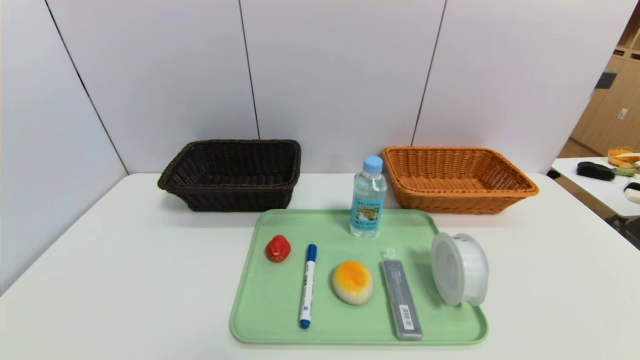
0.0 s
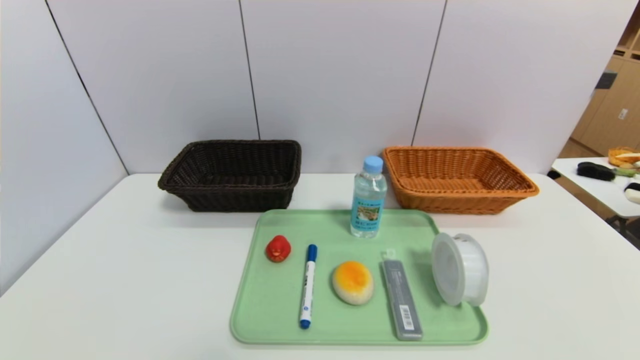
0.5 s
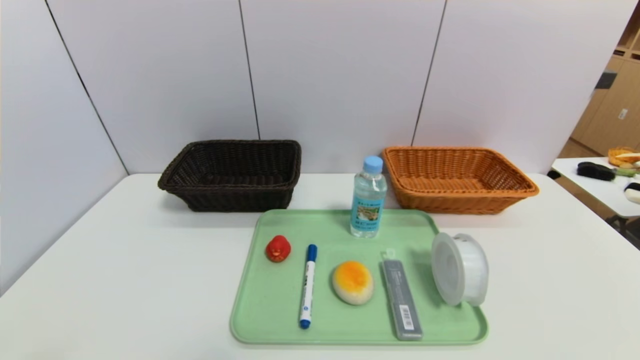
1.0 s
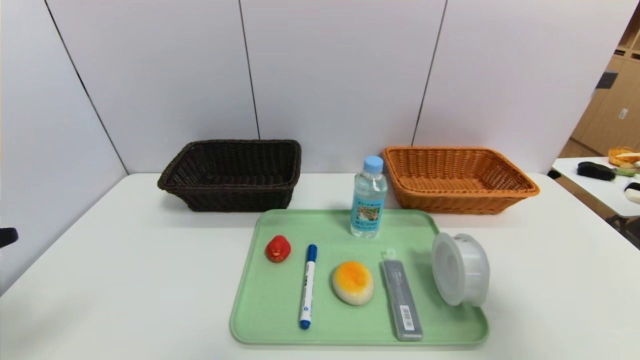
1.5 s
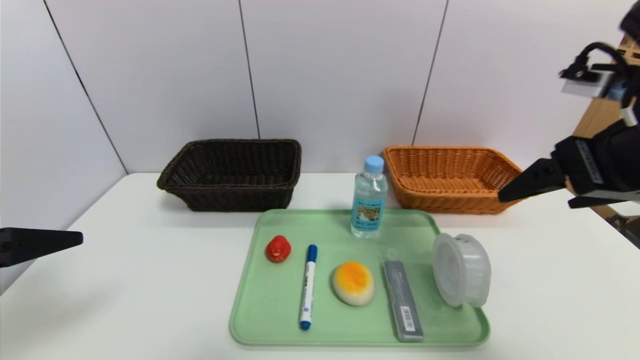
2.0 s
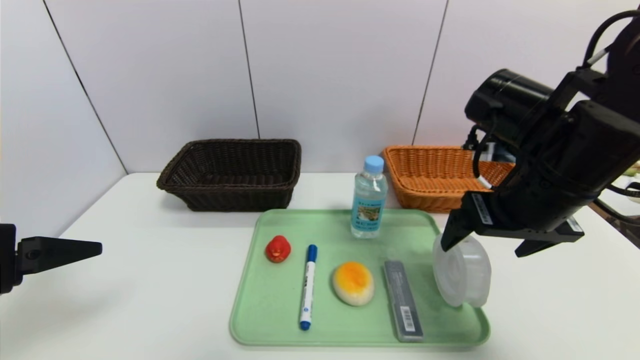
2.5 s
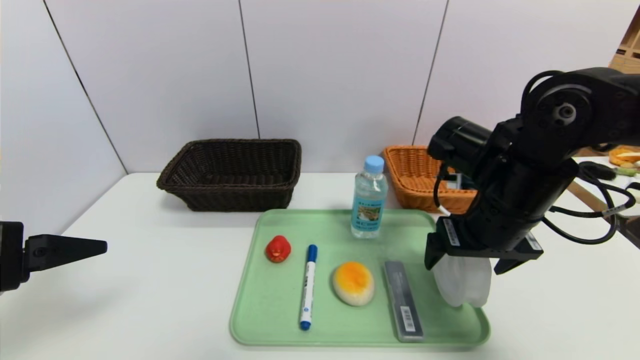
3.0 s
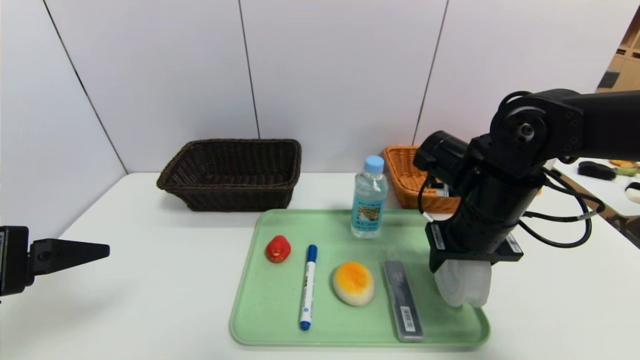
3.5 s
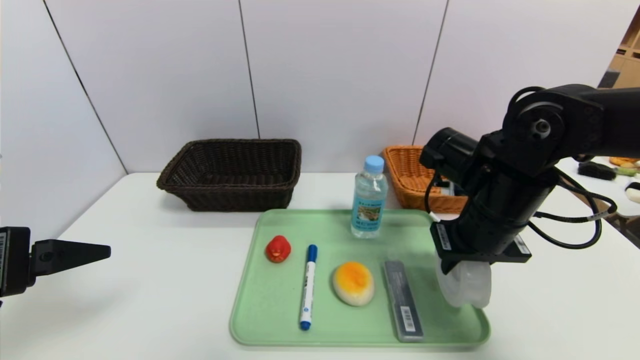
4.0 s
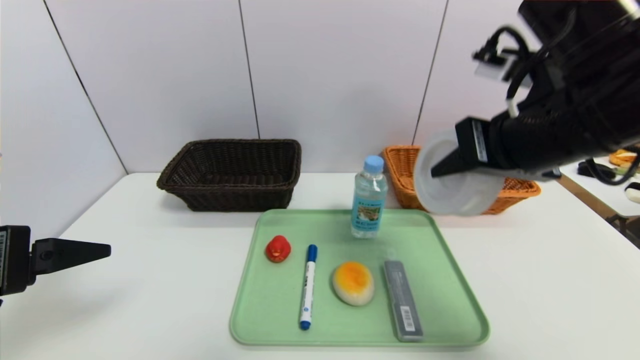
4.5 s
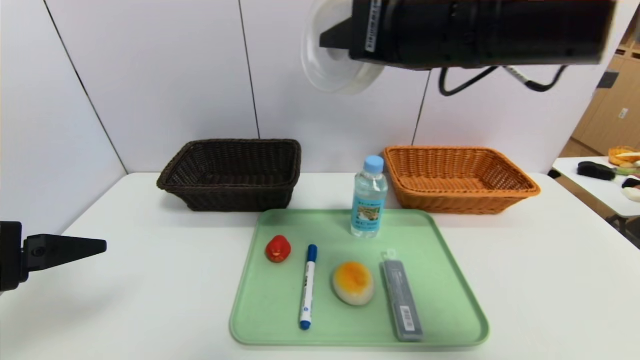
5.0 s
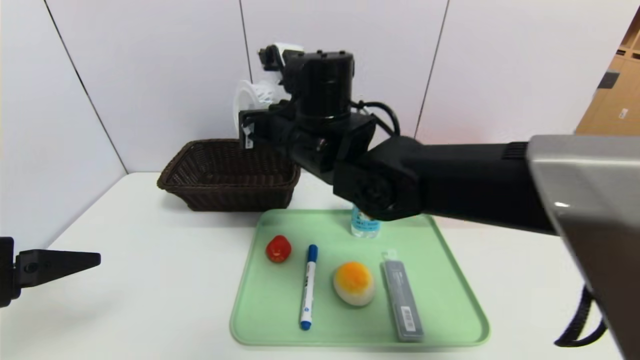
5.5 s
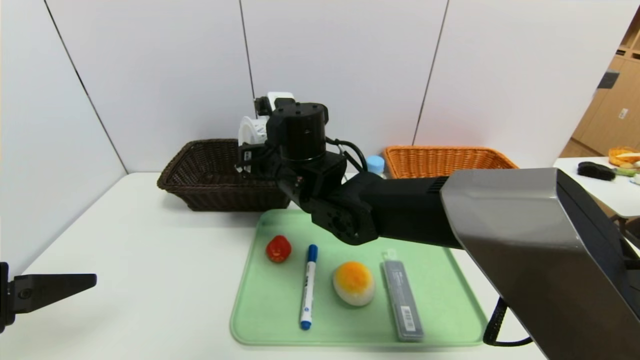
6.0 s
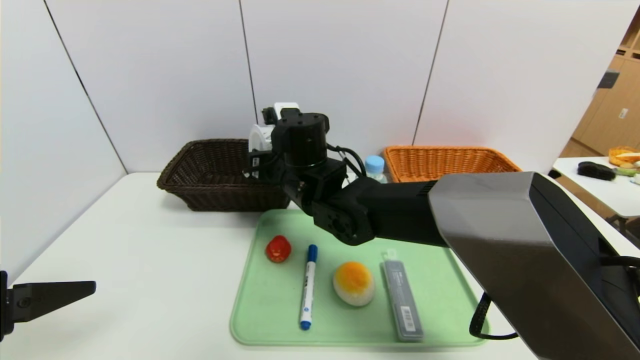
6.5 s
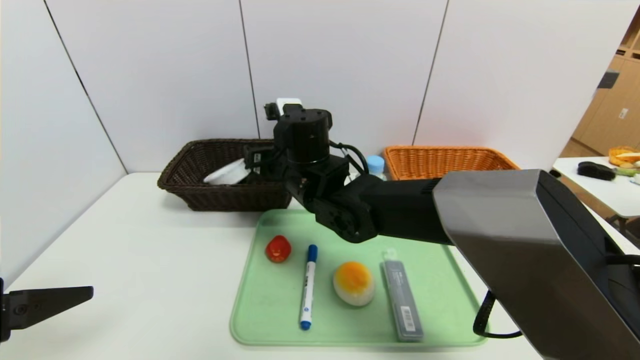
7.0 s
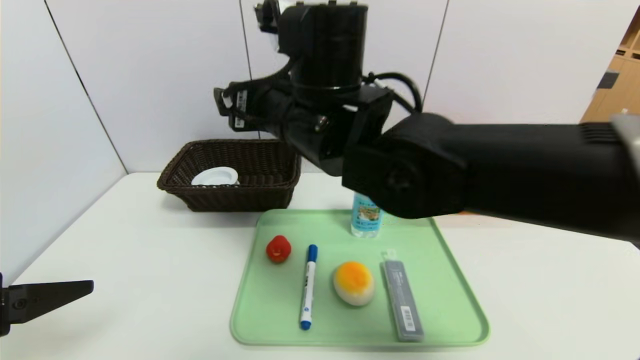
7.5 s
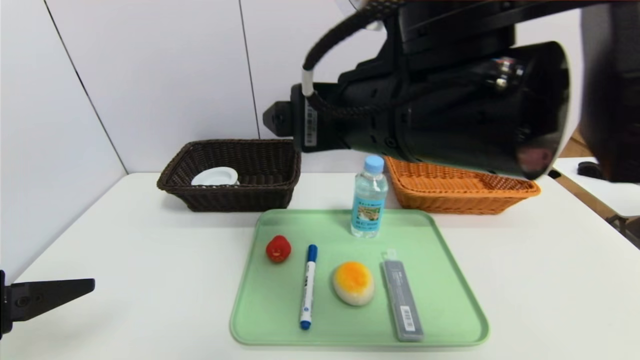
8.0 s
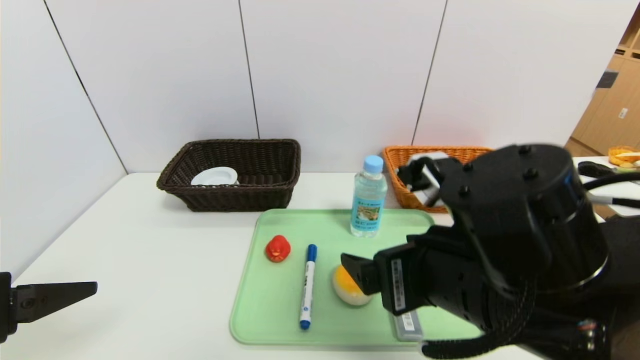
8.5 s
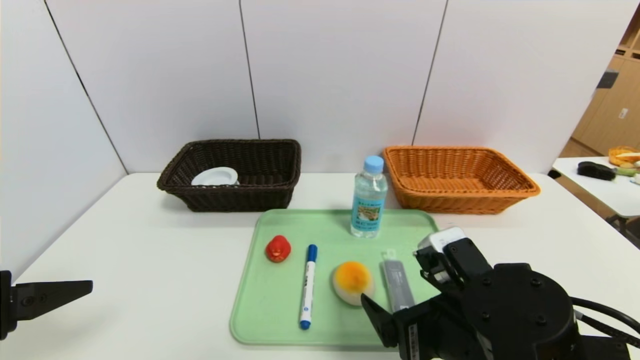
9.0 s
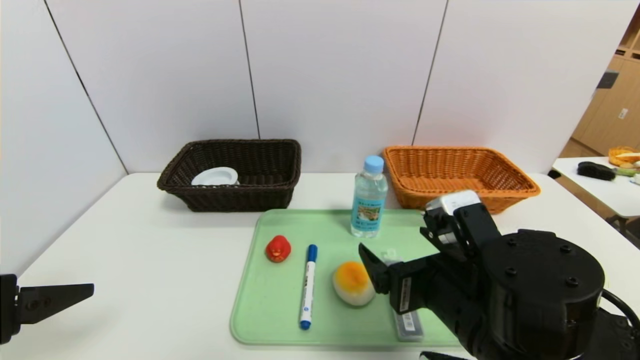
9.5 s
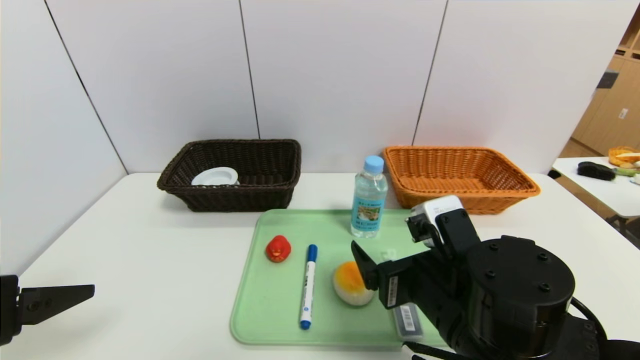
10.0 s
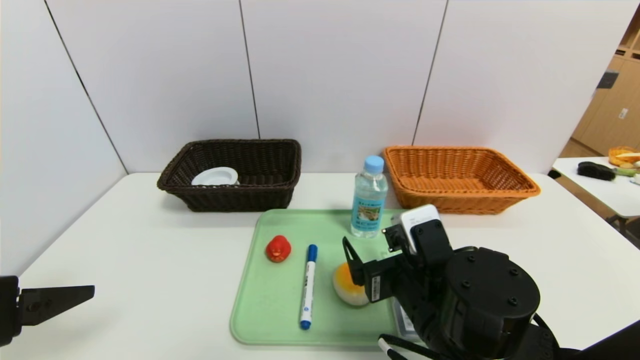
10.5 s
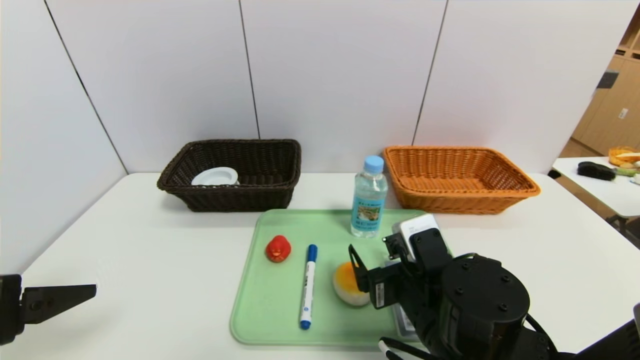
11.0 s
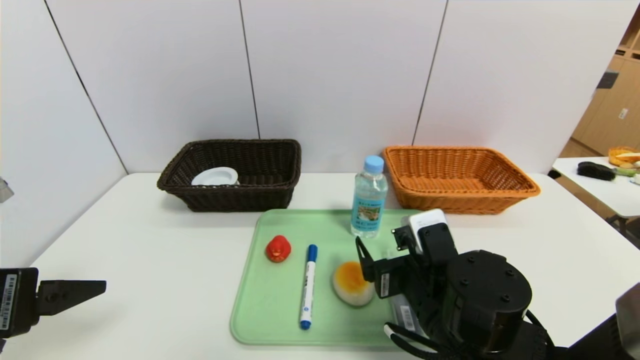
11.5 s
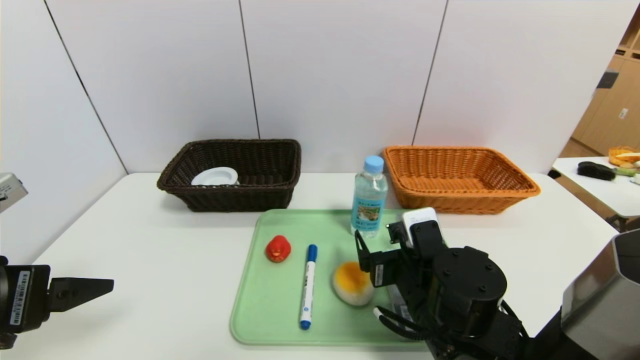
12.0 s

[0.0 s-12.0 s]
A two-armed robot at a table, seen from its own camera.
Task of the whole recording: place the food in the right basket with the right gripper, and place the non food items in the left basket with the left gripper.
Step, 0.0 to 7.0 s: Grasp the tape and put it in the left basket.
0.0 to 2.0 s: Both grippers move upward and forward, roughly 30 cm.
2.0 to 4.0 s: The right gripper travels downward, forward and to the left by roughly 15 cm, and closes up.
4.0 to 6.0 s: The right gripper shifts some 25 cm to the left.
6.0 to 8.0 s: The right gripper shifts roughly 20 cm backward, upward and to the right, and opens its fingers.
8.0 to 10.0 s: The right gripper goes roughly 20 cm downward.
10.0 to 12.0 s: The right gripper moves downward, some 5 cm.

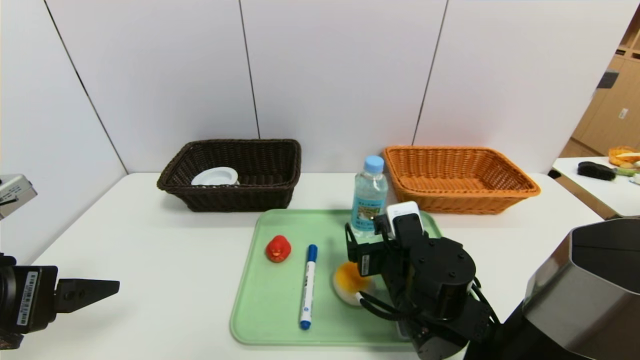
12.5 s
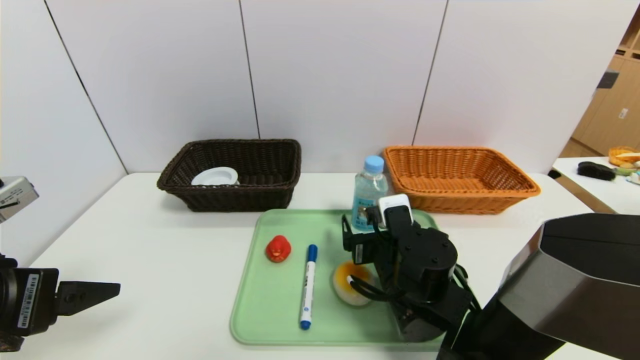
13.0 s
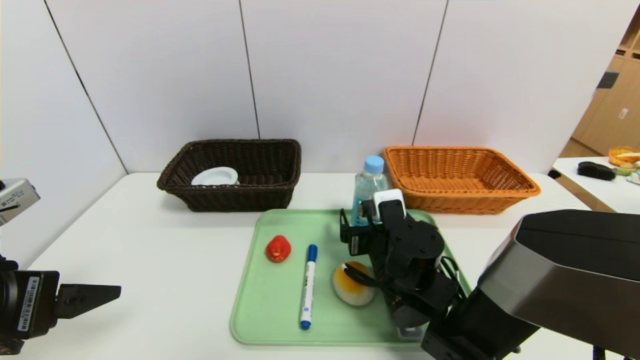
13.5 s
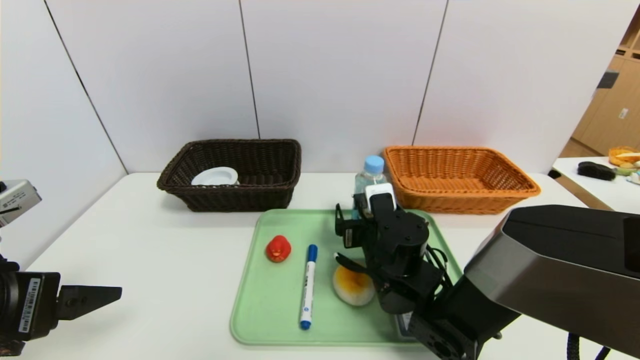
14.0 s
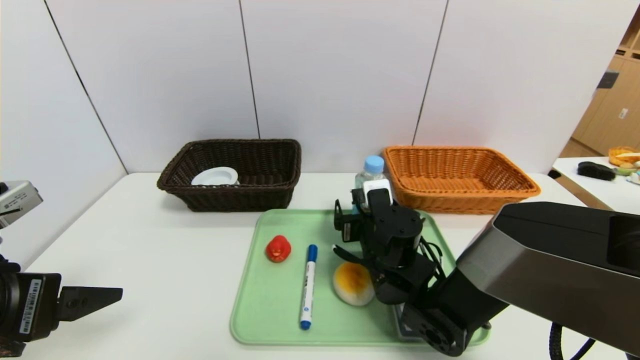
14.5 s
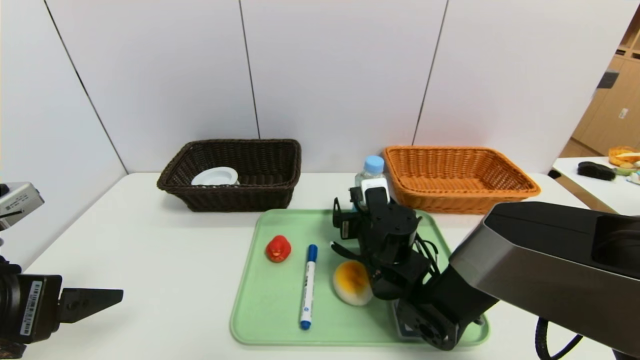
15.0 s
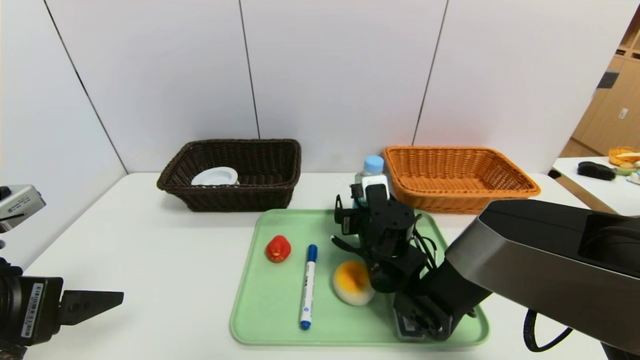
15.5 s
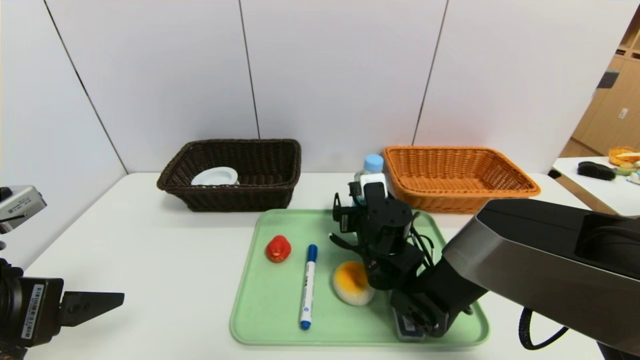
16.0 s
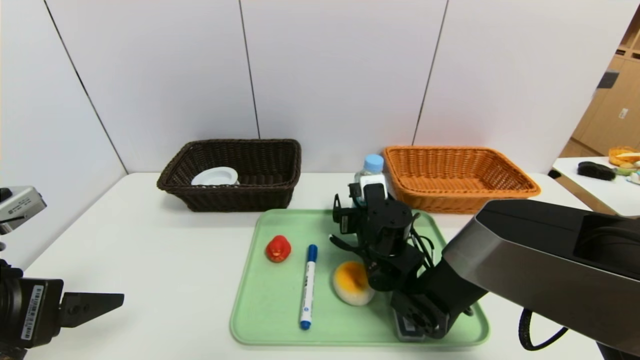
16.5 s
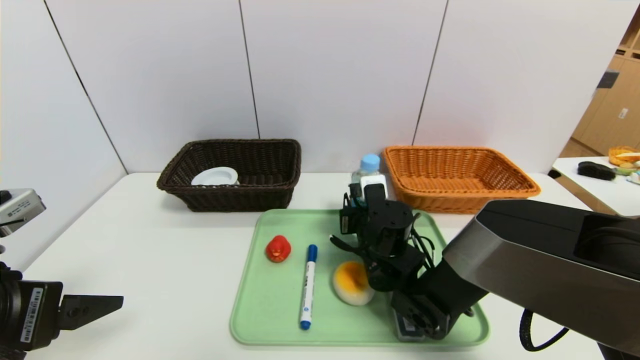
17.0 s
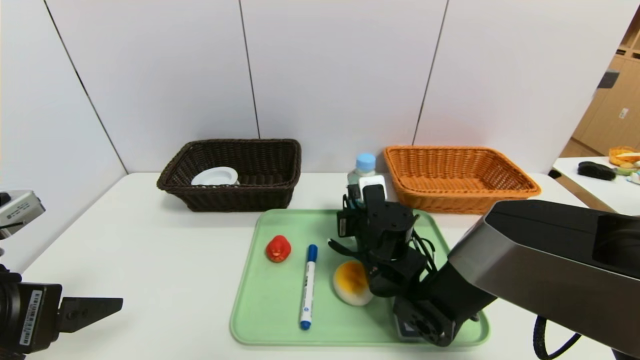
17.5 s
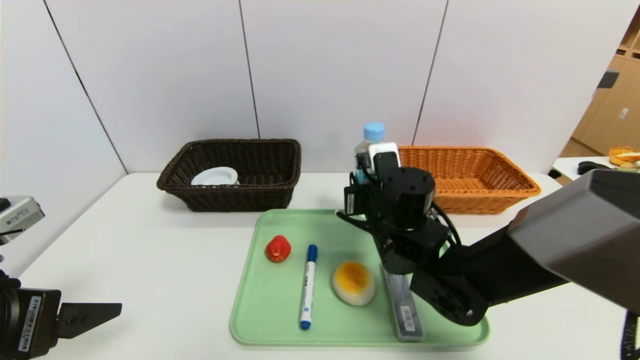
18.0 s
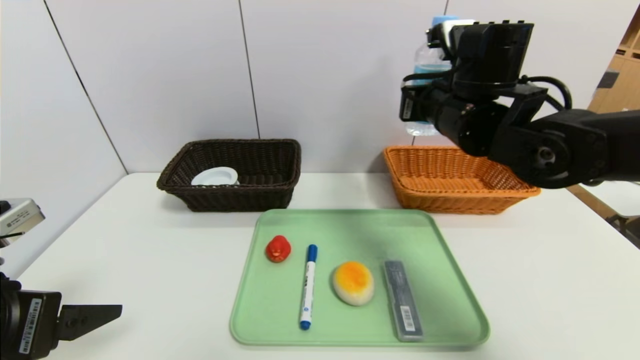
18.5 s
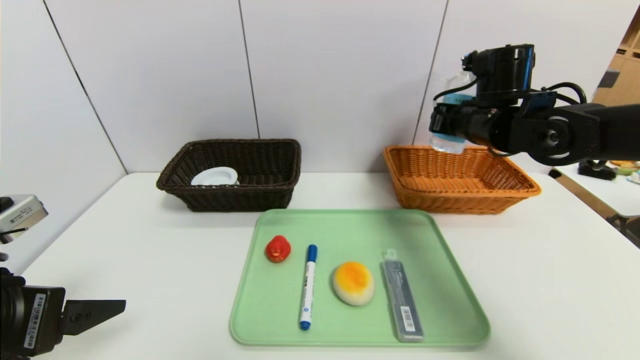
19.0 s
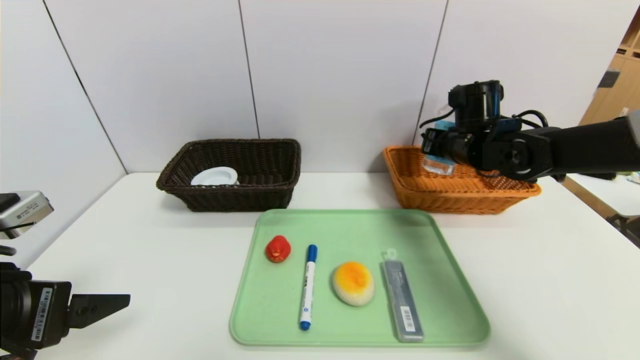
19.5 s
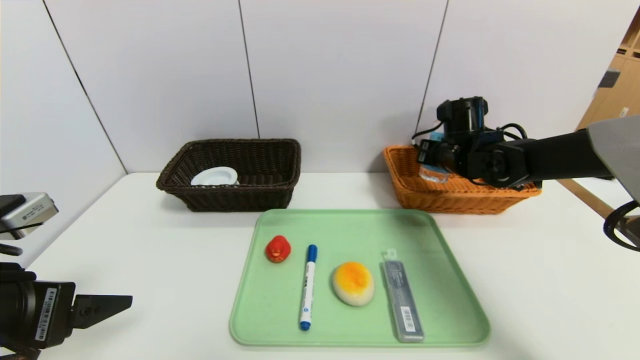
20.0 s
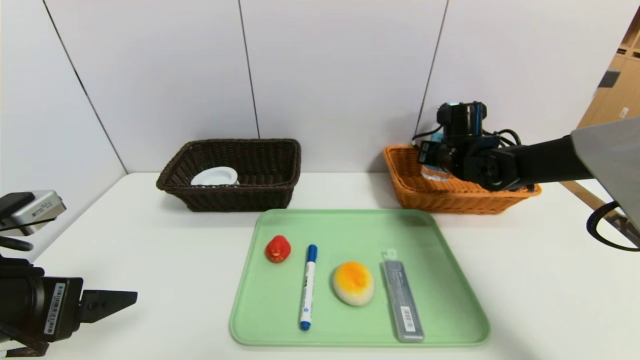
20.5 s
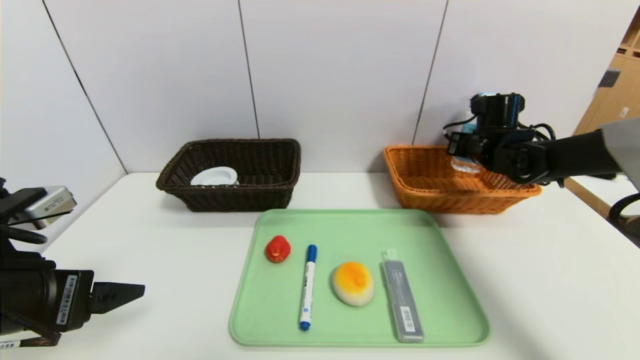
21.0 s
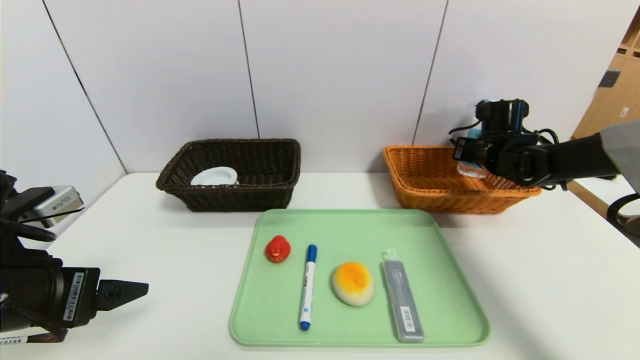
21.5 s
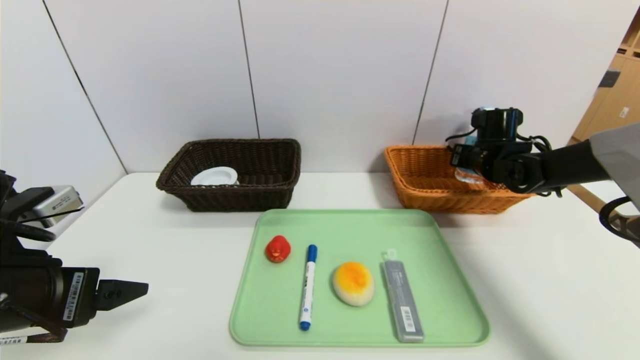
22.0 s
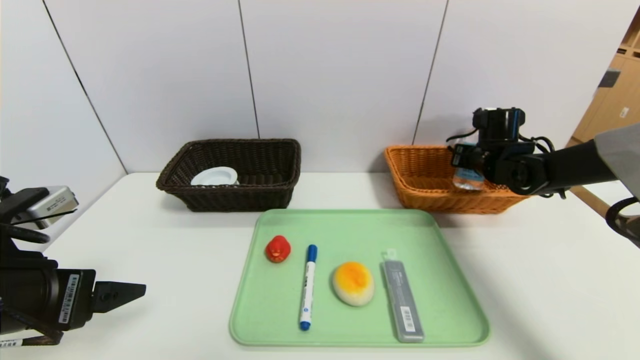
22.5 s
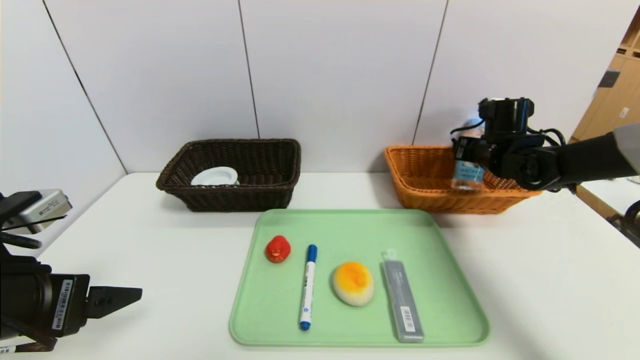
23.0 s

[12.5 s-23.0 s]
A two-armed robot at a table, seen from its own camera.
Task of the whole recording: place the food in the right basket with the right gripper, and place the non food items in the left basket with the left gripper.
12.5 to 14.5 s: The right gripper heads forward, covering approximately 5 cm.
14.5 to 16.5 s: The grippers move only a little.
16.5 to 19.0 s: The right gripper is displaced upward and to the right by some 25 cm, and closes up.
19.0 to 21.0 s: The right gripper shifts some 10 cm downward, forward and to the right.
21.0 to 23.0 s: The right gripper opens its fingers.
